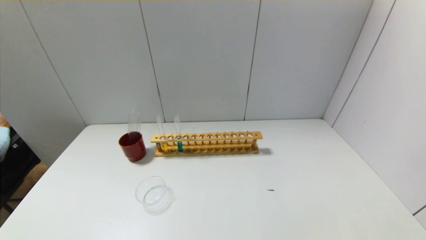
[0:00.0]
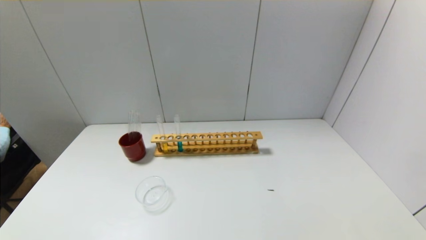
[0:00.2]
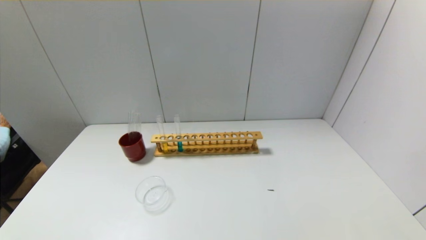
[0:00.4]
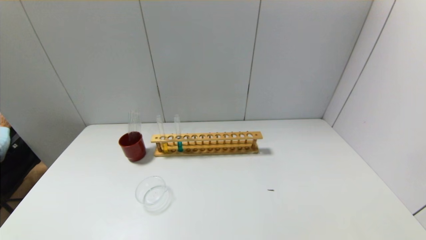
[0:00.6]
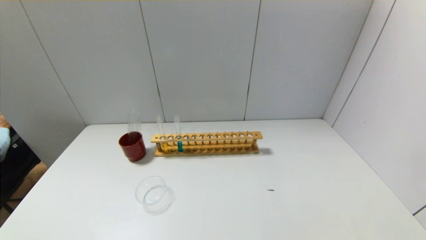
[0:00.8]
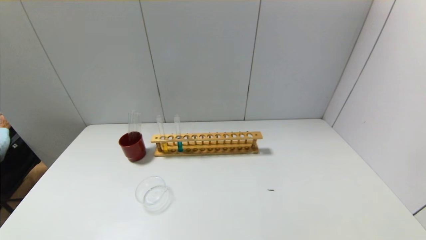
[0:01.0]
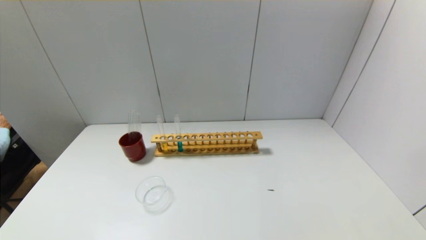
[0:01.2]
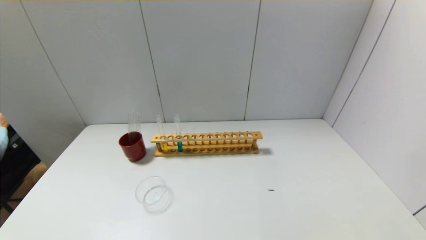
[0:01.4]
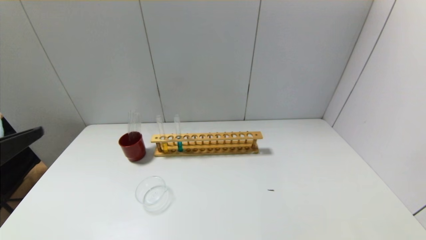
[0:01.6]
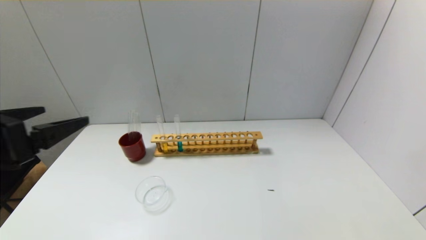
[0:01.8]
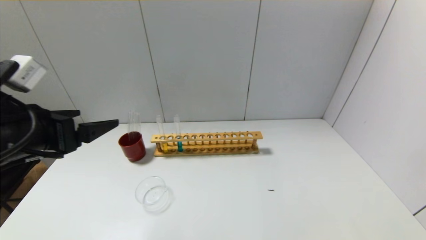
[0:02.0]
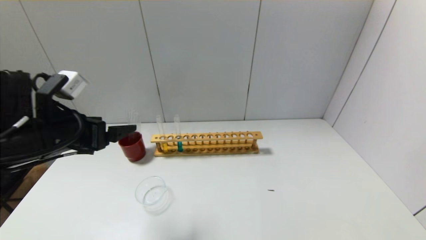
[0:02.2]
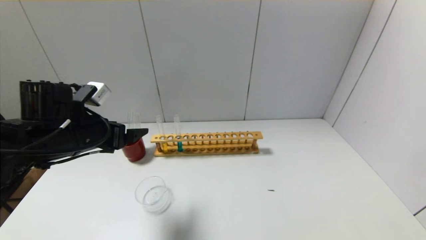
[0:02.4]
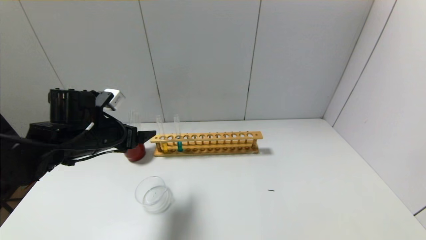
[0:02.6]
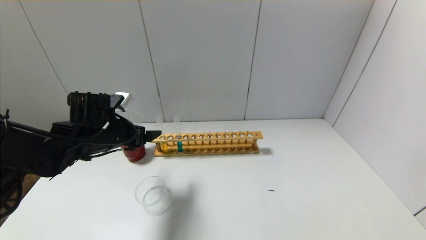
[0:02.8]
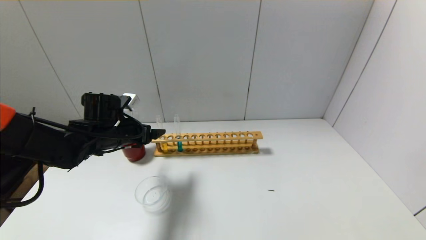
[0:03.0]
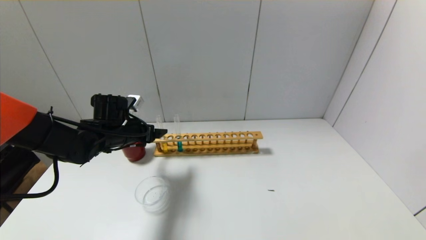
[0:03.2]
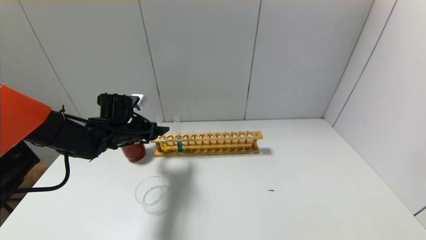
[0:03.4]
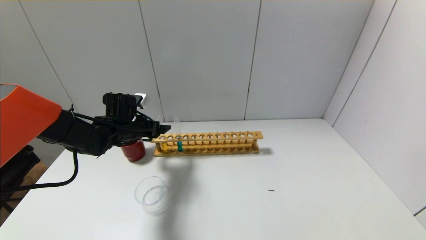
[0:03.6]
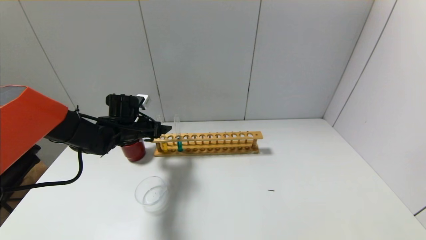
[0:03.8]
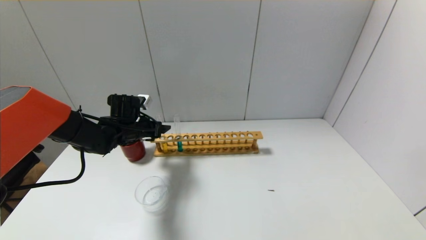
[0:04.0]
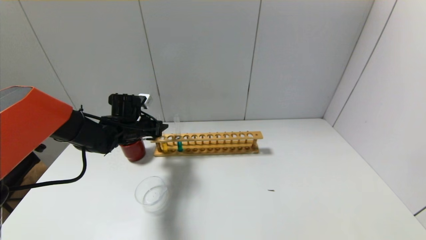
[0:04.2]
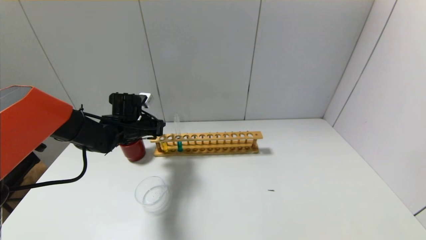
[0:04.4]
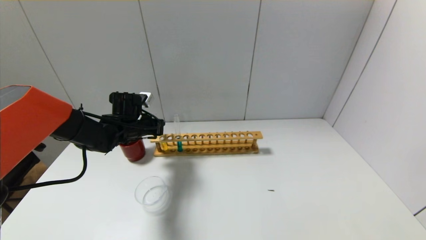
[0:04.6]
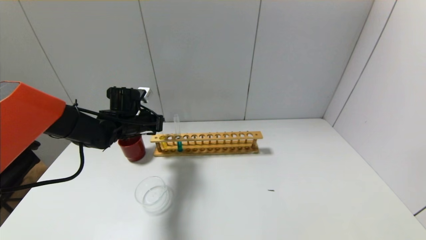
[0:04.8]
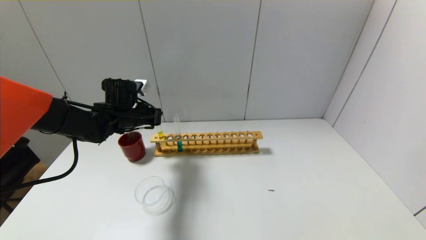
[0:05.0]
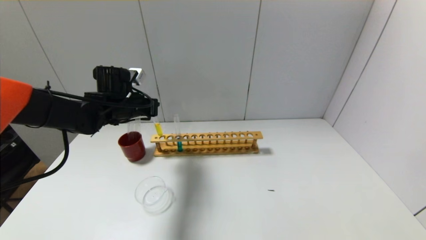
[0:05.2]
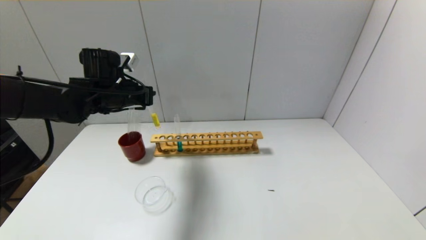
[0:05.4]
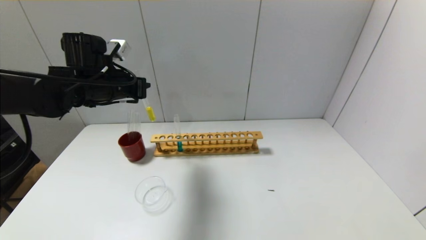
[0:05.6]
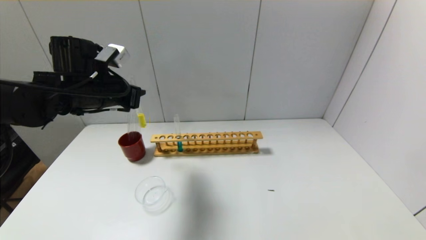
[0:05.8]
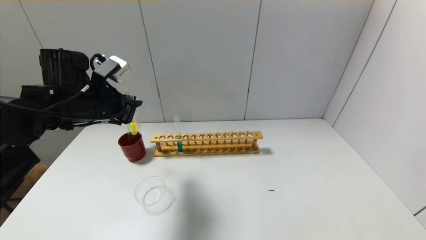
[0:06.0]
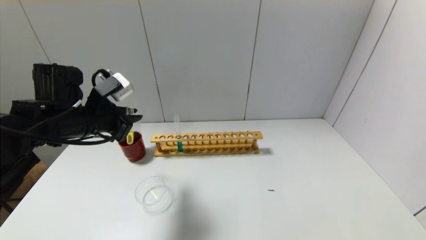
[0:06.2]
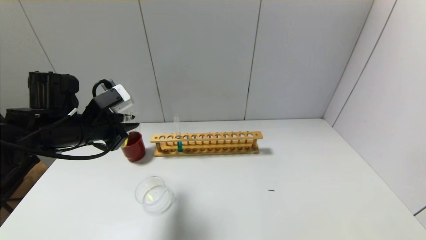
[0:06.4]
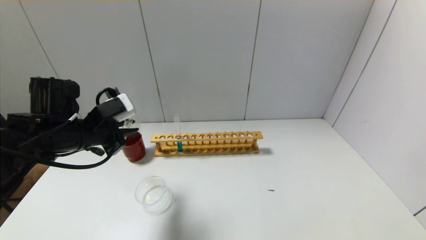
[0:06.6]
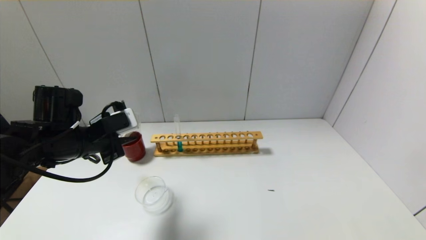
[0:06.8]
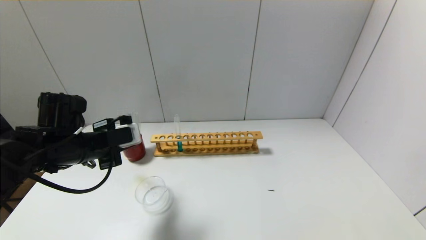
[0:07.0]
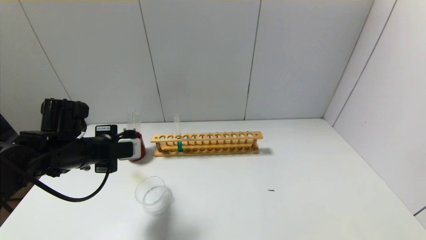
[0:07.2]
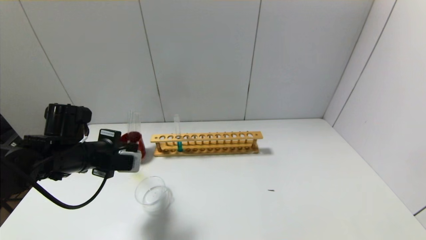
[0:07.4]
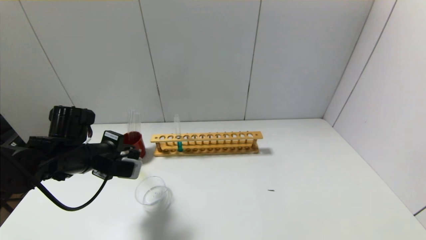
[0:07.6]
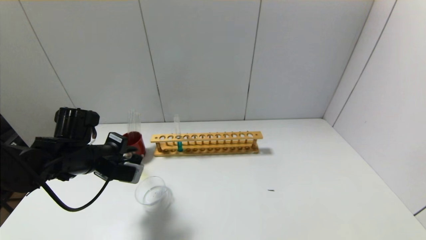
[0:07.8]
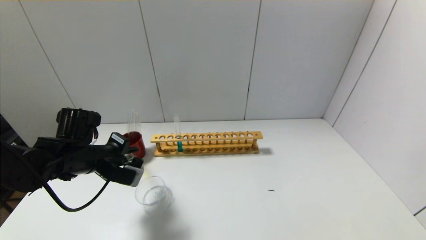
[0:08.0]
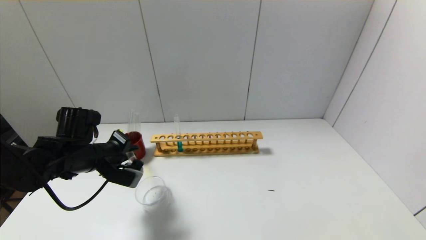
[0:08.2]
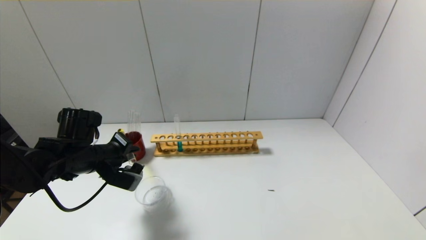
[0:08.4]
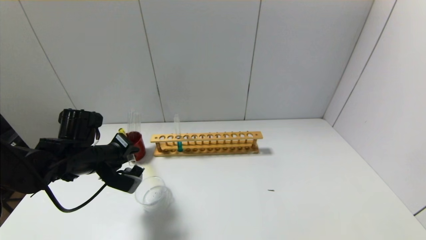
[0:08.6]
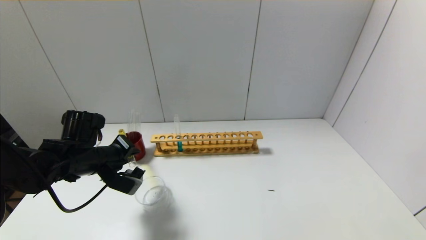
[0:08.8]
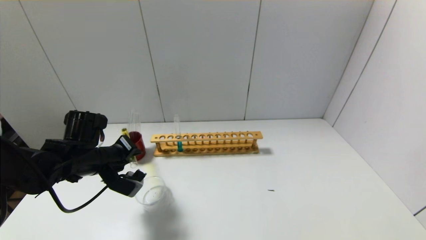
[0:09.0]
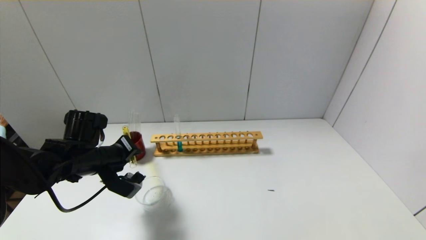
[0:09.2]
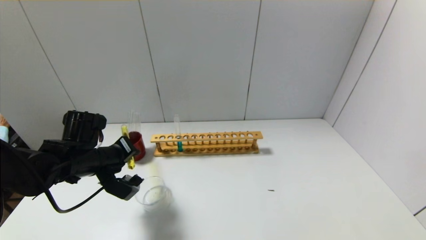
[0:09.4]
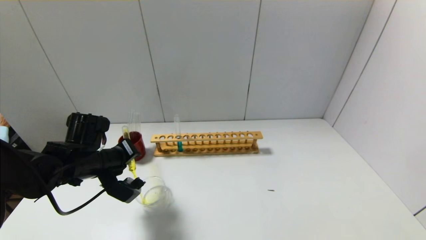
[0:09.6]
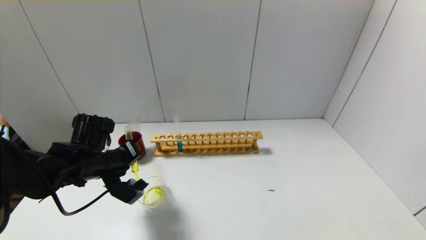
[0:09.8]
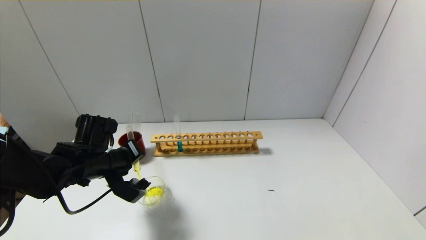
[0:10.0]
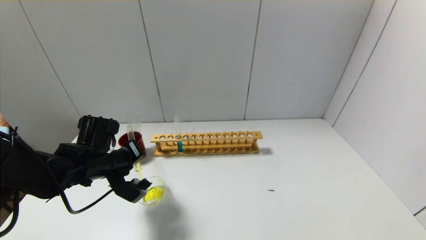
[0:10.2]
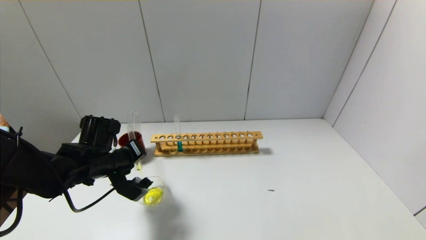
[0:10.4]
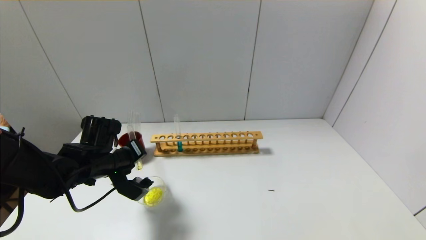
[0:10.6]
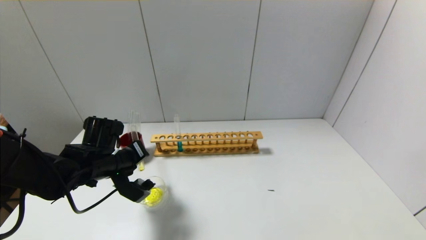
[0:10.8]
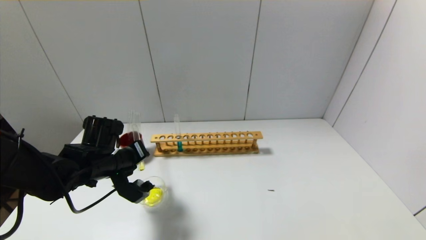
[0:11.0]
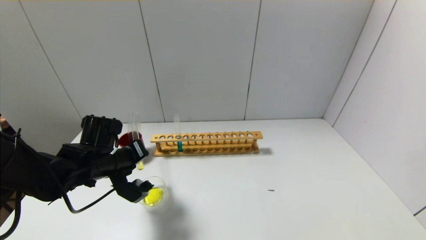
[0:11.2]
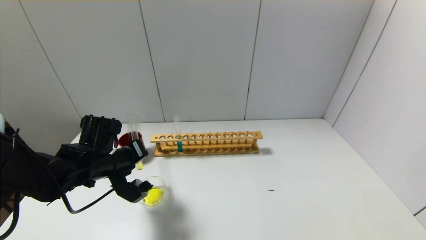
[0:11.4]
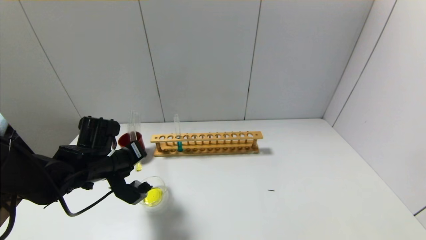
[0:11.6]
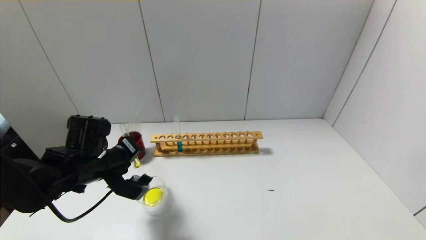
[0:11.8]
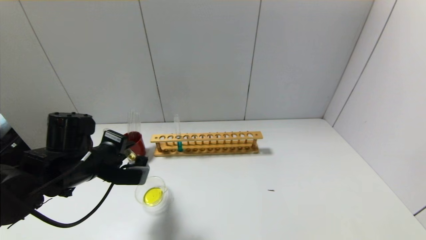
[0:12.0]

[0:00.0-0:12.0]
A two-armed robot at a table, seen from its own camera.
Step, 0:00.0 to 0:04.6: Grasp the yellow reagent with the left gripper.
Step, 0:04.8 to 0:11.8: Pour the yellow reagent into the graduated cylinder with the left gripper.
0:00.0 to 0:01.6: The left gripper heads upward and forward, covering some 25 cm.
0:01.6 to 0:03.0: The left gripper goes approximately 30 cm forward and downward.
0:03.0 to 0:04.4: The left gripper moves forward, about 5 cm, and closes its fingers.
0:04.4 to 0:06.0: The left gripper travels upward and backward by some 15 cm.
0:06.0 to 0:07.6: The left gripper travels downward by roughly 10 cm.
0:09.0 to 0:10.4: The grippers make only small movements.
0:10.4 to 0:12.0: The left gripper shifts by approximately 5 cm.

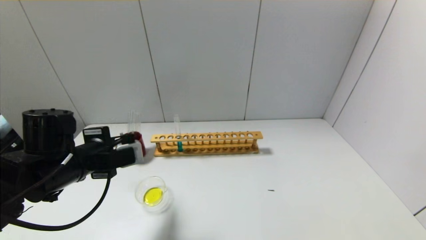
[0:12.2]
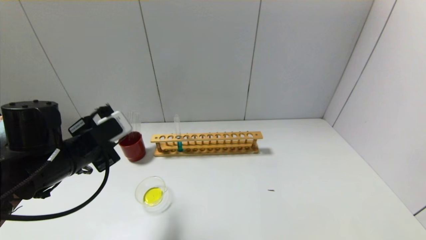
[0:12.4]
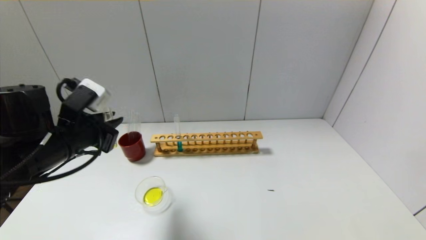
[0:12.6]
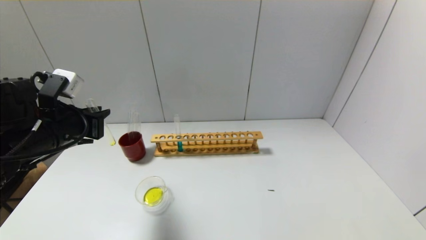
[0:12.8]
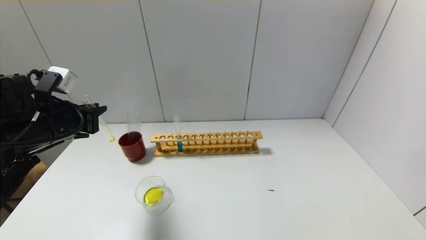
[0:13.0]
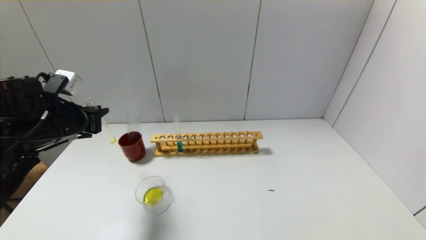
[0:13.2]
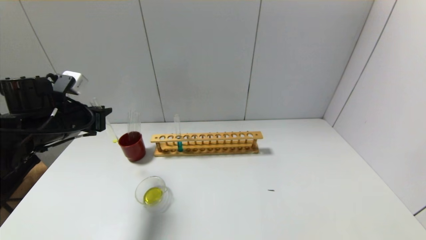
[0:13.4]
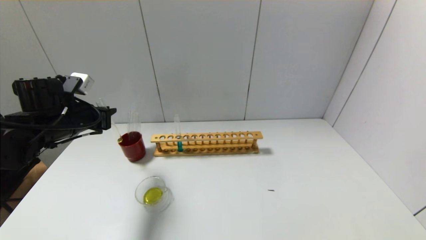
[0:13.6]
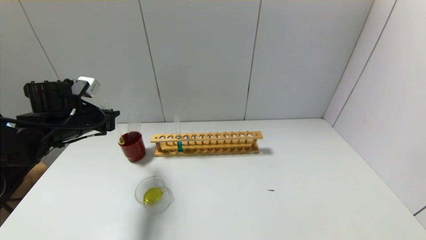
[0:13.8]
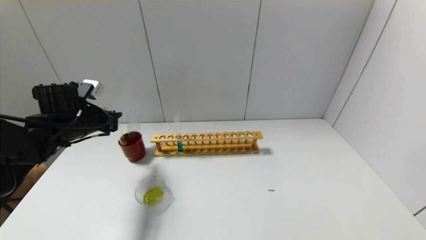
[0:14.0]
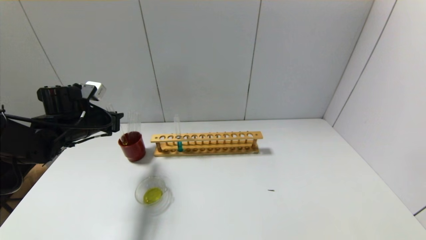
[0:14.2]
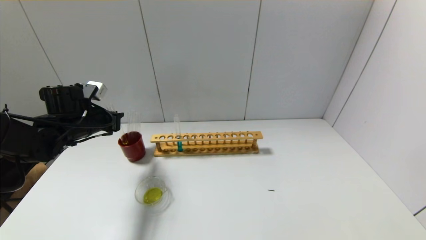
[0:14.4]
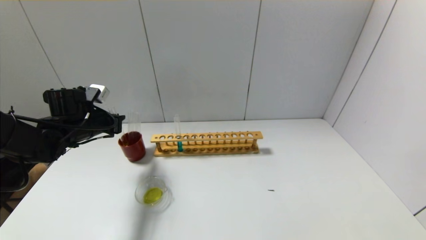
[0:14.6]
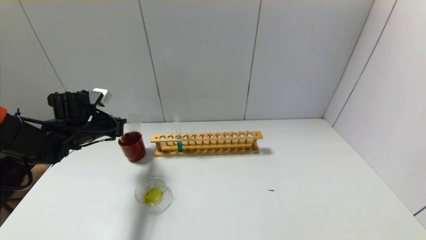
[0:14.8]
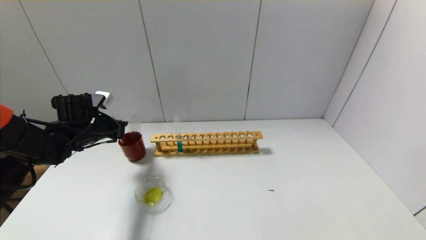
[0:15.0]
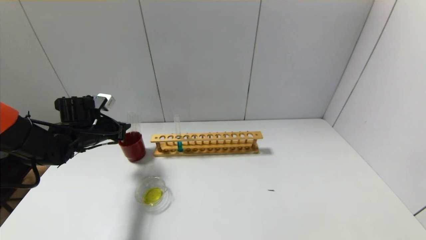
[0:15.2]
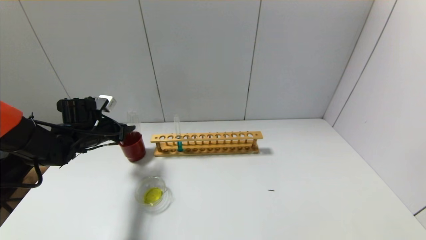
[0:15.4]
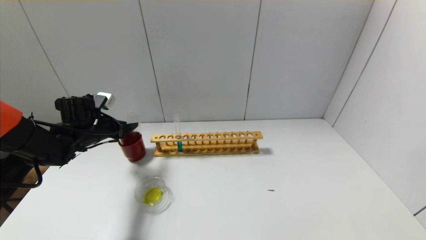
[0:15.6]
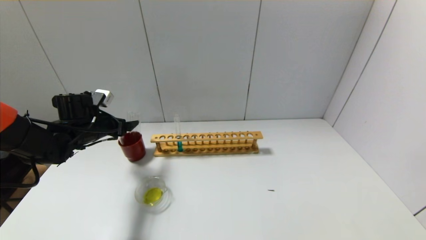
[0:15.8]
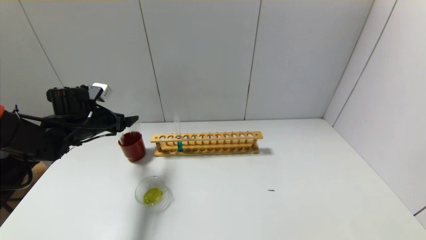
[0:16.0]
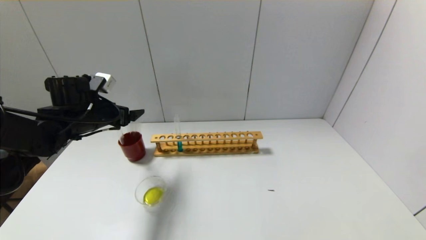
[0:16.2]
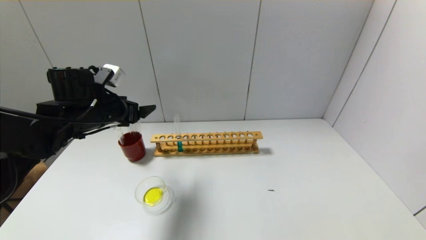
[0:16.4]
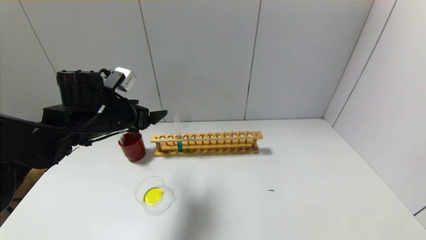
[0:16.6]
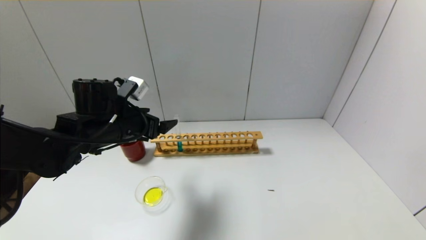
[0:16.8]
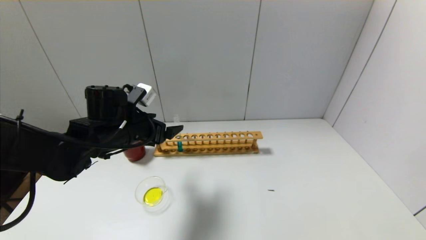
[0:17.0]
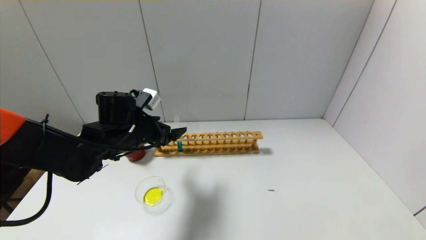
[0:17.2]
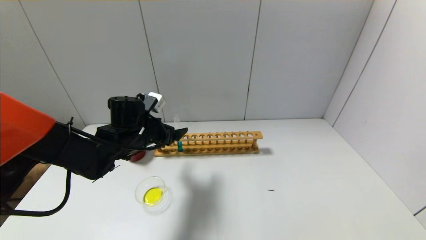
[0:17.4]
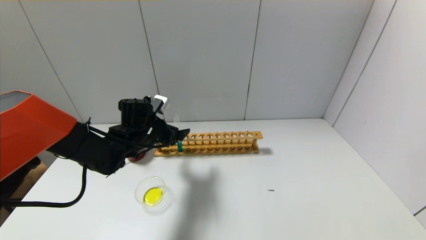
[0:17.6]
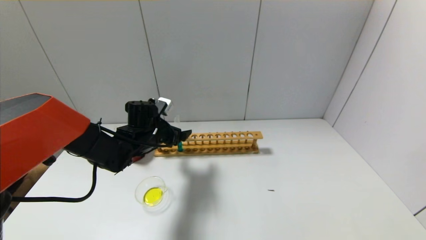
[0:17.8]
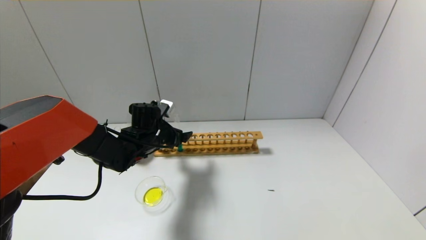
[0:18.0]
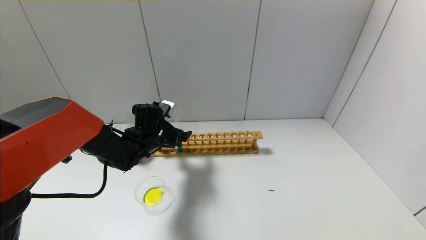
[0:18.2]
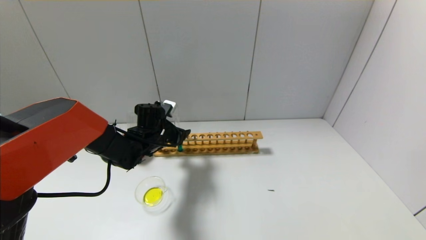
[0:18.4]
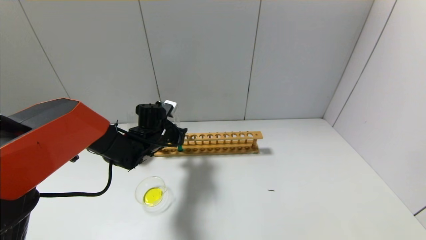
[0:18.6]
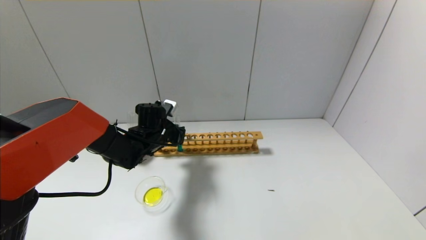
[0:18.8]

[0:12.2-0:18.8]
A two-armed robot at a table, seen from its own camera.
Step, 0:12.2 to 0:15.2: Place the test tube into the brown cup with the left gripper.
Step, 0:15.4 to 0:18.8: Grasp the blue reagent with the left gripper.
0:12.2 to 0:13.8: The left gripper heads forward and to the left, covering some 10 cm.
0:13.8 to 0:15.4: The left gripper is displaced downward by some 5 cm, and opens up.
0:15.4 to 0:17.2: The left gripper moves to the right, roughly 15 cm, and opens up.
0:17.2 to 0:18.8: The left gripper heads forward and downward, covering roughly 10 cm, and closes.
